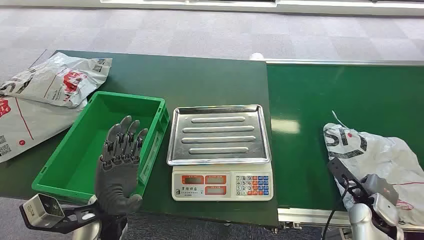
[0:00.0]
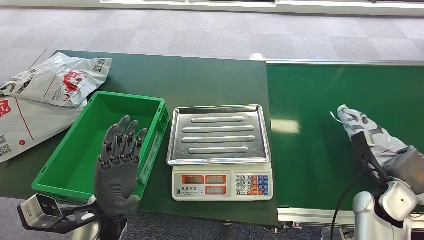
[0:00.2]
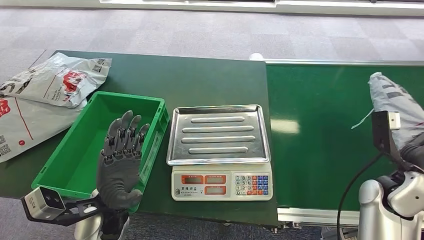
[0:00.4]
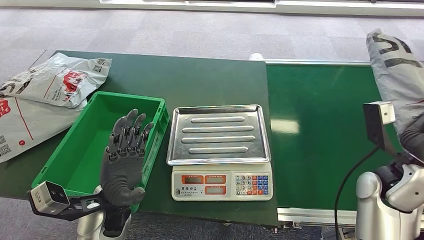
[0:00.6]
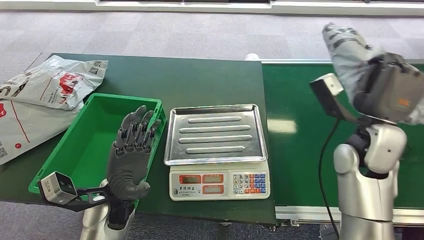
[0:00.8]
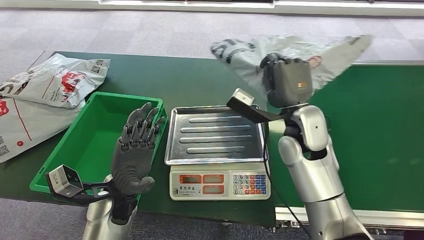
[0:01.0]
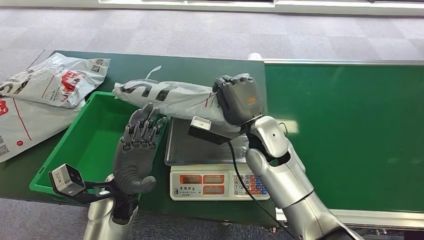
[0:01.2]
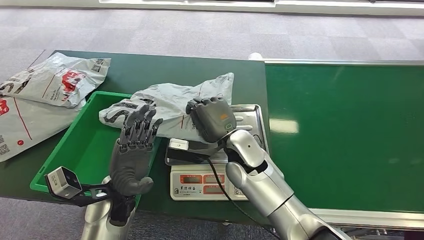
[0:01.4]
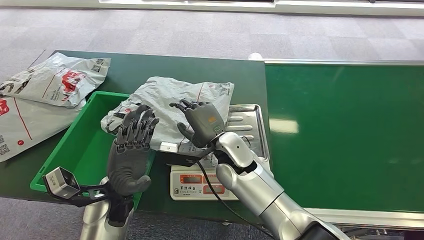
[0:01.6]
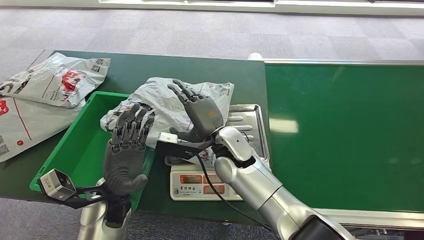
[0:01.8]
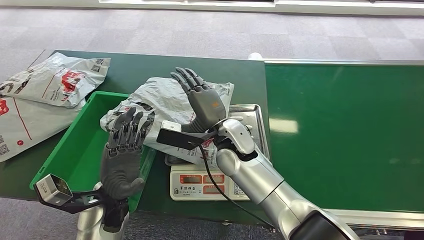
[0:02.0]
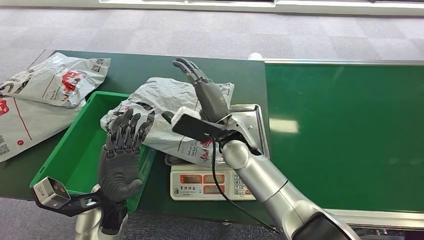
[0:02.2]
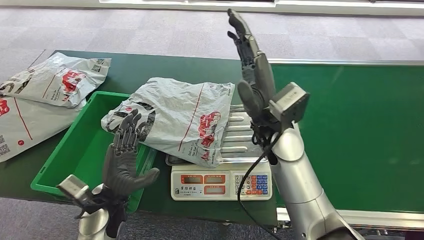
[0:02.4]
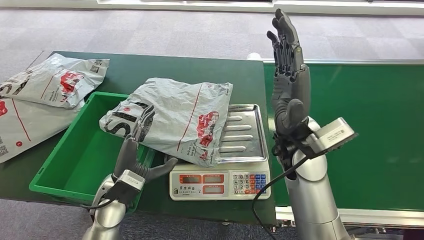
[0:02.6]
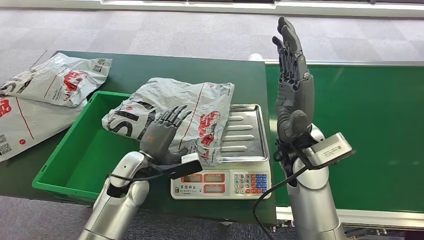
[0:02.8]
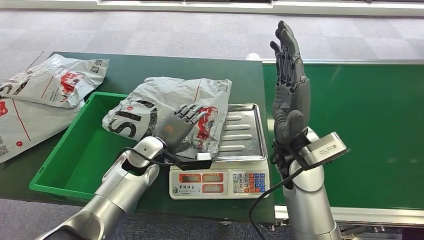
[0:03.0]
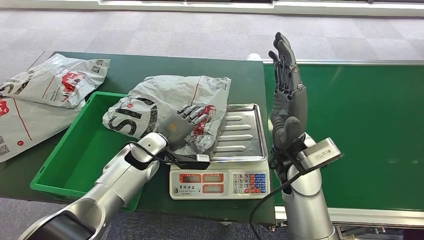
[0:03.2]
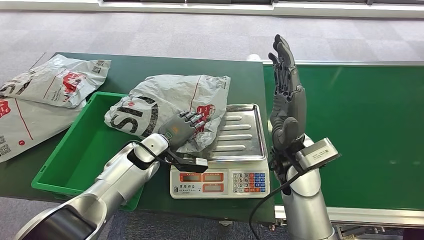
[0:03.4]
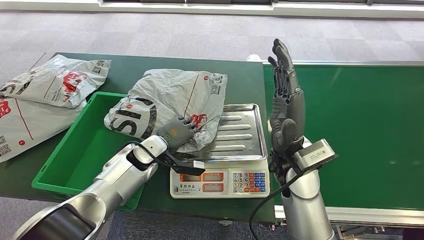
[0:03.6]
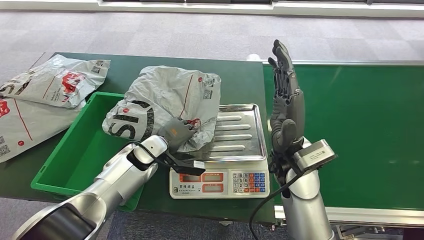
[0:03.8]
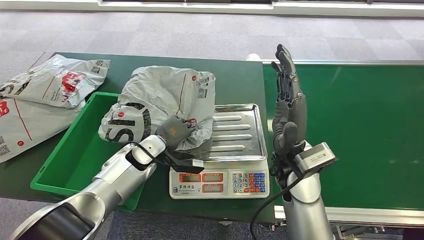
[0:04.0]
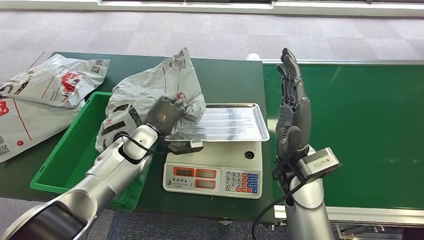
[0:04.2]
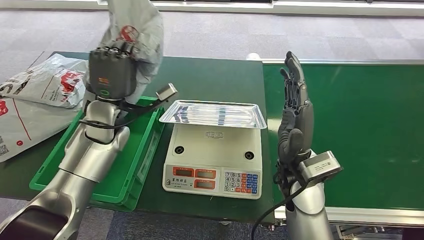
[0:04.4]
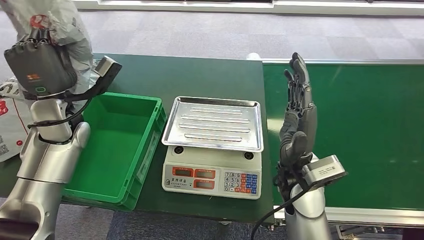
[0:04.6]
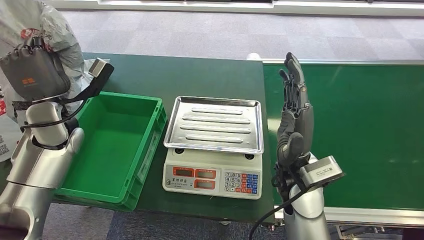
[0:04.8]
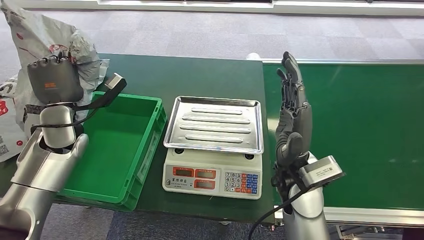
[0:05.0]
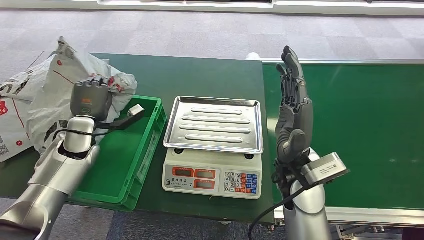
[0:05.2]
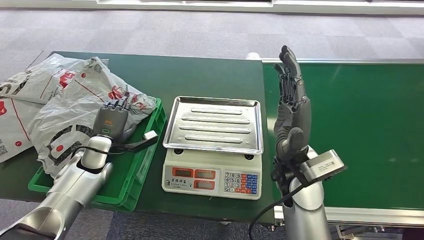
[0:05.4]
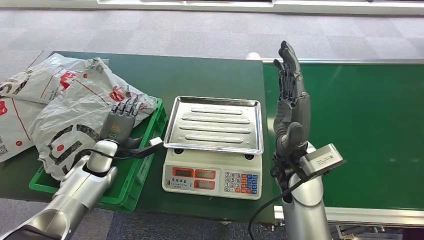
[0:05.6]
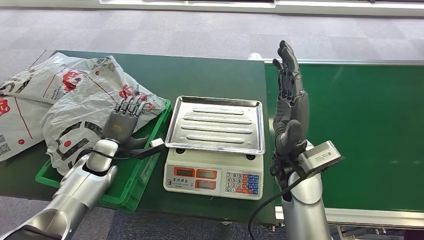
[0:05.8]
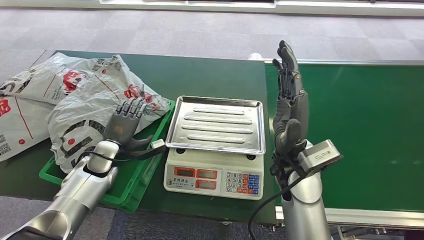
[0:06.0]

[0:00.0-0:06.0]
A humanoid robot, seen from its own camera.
Step, 0:00.0 to 0:01.0: Pick up the package from the conveyor belt.
Step, 0:01.2 to 0:02.0: Place the package onto the inbound machine.
Step, 0:02.6 to 0:04.4: Pick up the package from the inbound machine.
Step, 0:04.8 to 0:06.0: Place the package into the parcel locker.
